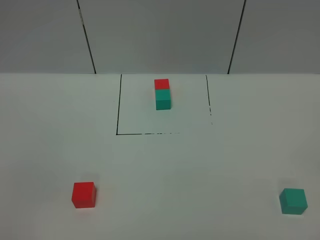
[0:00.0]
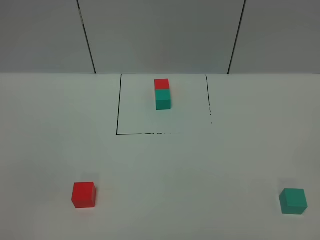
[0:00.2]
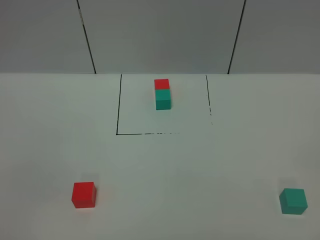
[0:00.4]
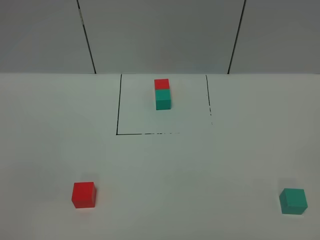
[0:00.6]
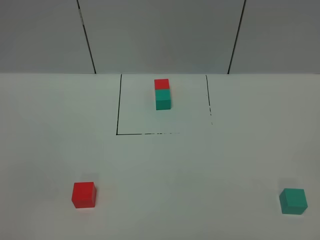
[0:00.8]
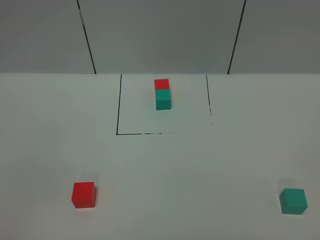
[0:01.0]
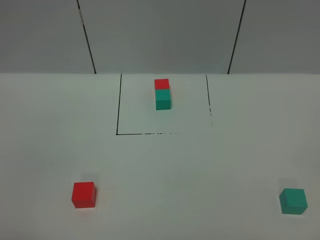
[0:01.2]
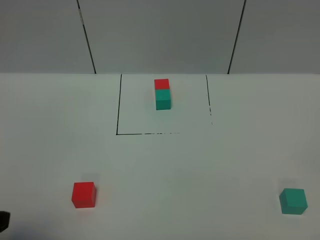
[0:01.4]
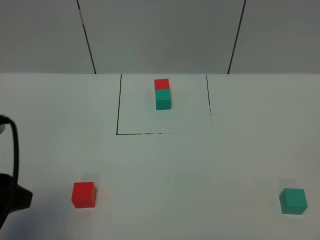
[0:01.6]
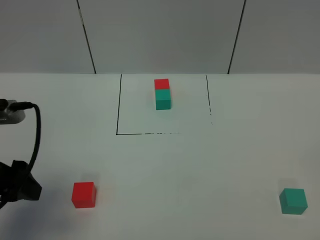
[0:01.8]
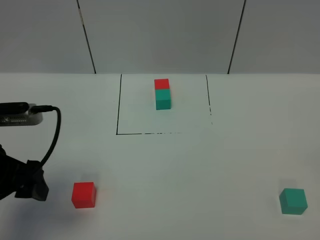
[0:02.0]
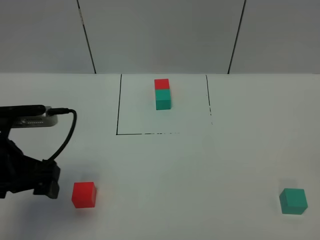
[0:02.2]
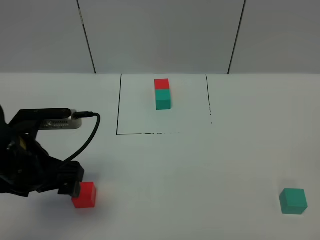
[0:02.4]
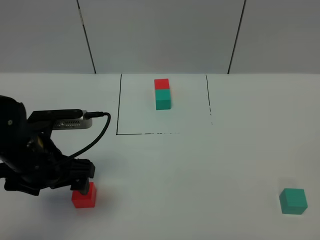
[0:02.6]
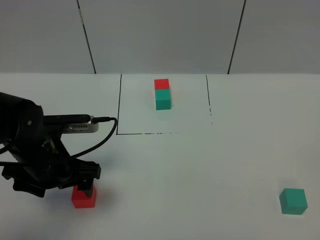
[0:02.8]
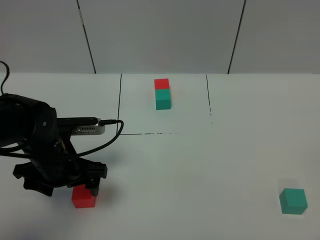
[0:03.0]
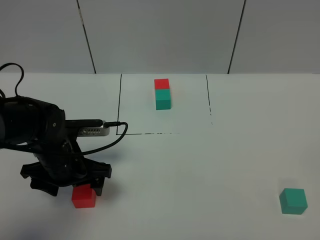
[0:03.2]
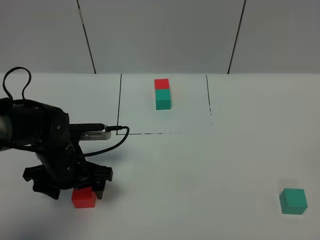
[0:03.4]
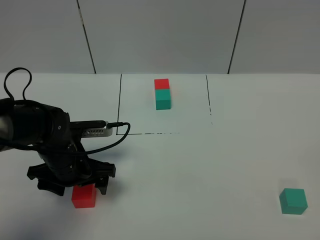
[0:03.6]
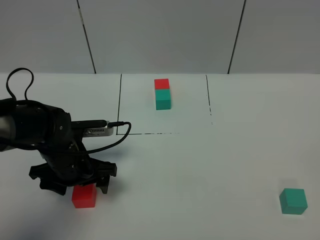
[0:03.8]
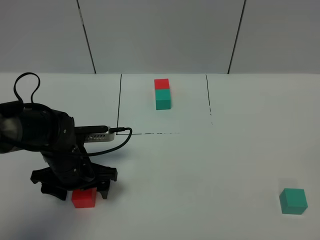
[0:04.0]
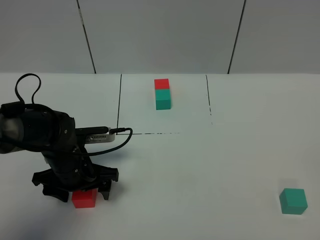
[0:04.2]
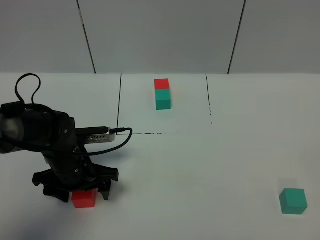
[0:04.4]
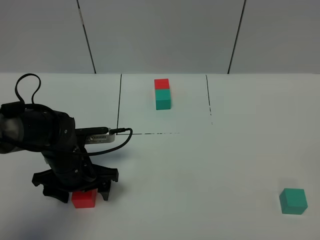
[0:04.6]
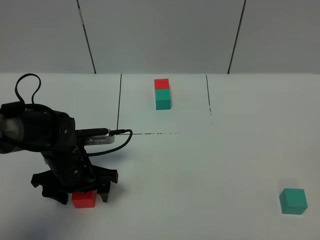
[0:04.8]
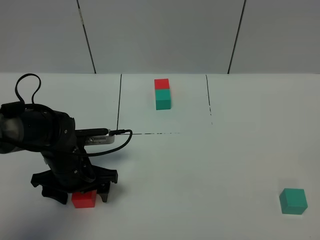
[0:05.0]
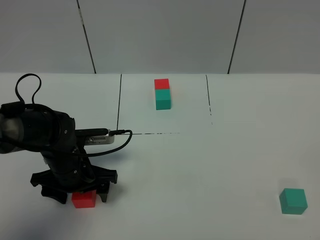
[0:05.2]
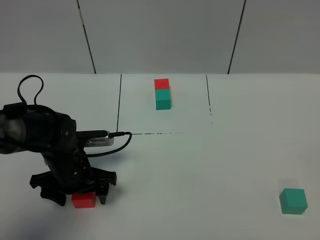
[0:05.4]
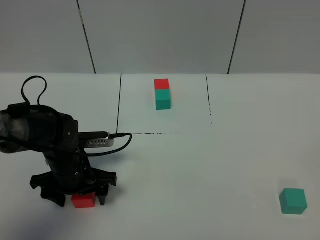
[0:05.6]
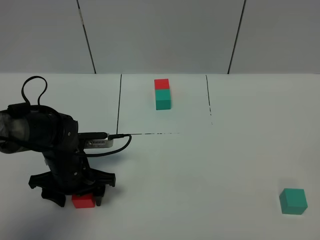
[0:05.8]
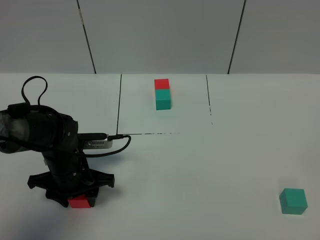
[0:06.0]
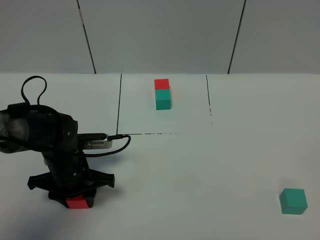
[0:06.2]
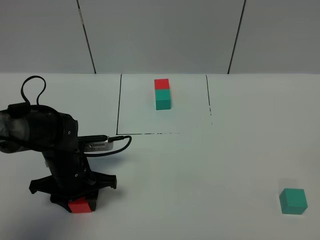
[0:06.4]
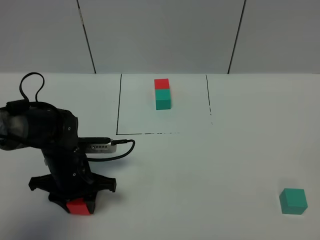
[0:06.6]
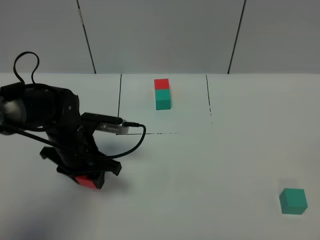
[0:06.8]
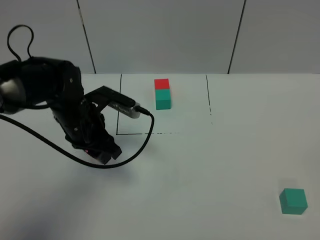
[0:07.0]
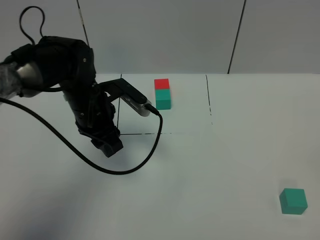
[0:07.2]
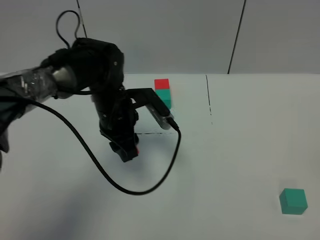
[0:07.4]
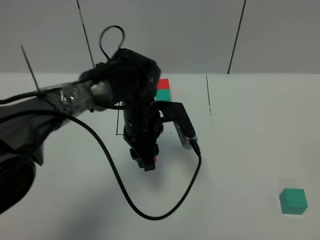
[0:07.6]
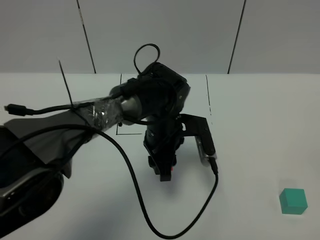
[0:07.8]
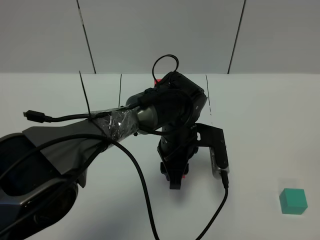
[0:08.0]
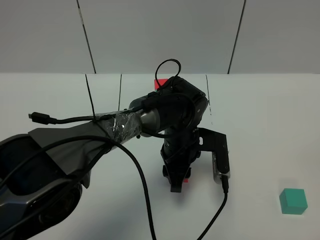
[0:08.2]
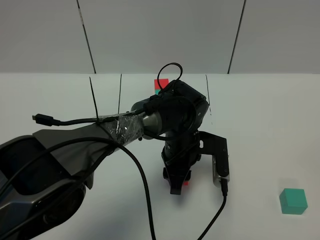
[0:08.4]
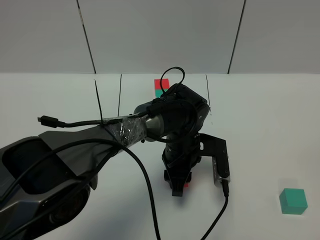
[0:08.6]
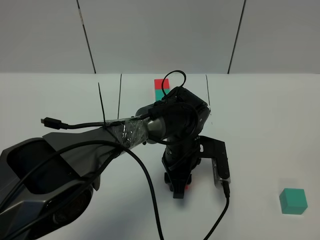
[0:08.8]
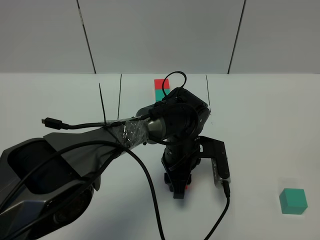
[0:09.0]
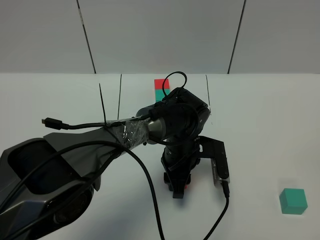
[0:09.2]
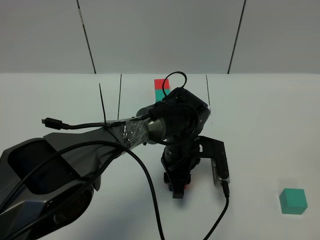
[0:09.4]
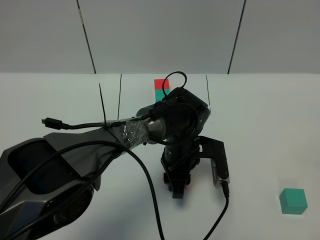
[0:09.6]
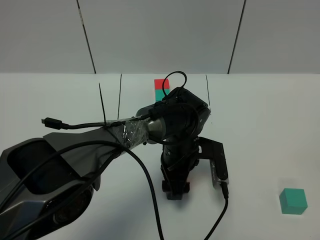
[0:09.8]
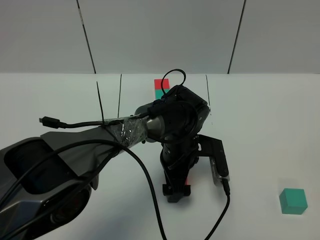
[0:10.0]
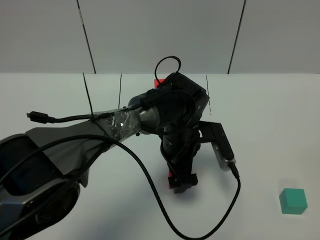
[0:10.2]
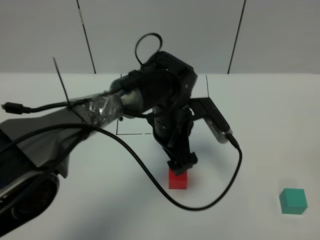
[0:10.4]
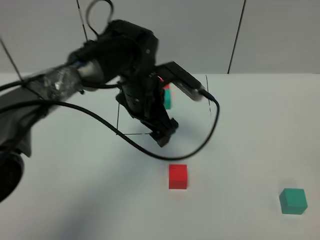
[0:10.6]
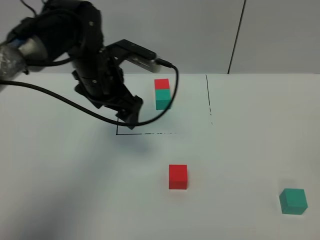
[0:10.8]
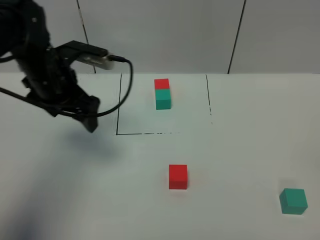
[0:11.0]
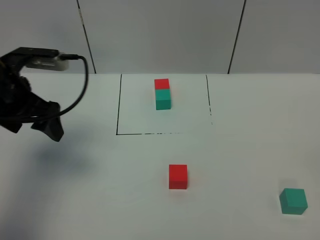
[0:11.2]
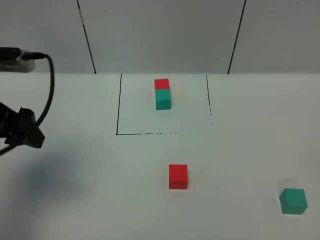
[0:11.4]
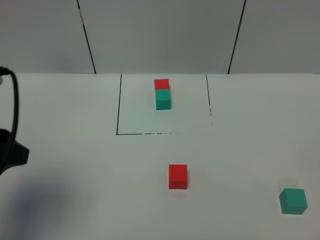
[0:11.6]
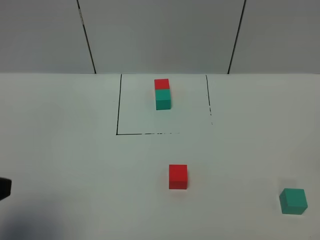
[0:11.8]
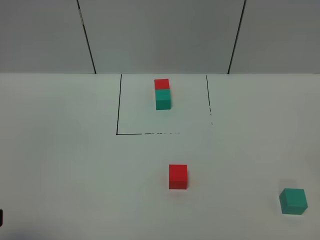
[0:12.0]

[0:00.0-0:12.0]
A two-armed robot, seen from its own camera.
Task of the whole recording: According to the building block template in front, assemble the scattered blocks together.
Step, 0:01.4 to 0:10.8: Put the red cube in the center of the table.
0:00.0 to 0:01.6: The left gripper goes about 15 cm forward.
0:01.6 to 0:03.0: The left gripper goes some 20 cm downward, forward and to the right.
0:03.0 to 0:04.4: The left gripper shifts by roughly 5 cm.
0:04.4 to 0:06.0: The left gripper closes up.
0:06.0 to 0:07.6: The left gripper heads to the right, forward and upward, covering some 15 cm.
0:07.6 to 0:09.0: The left gripper goes approximately 10 cm to the right and downward.
0:09.0 to 0:10.4: The left gripper shifts about 10 cm upward, and opens up.
0:10.4 to 0:12.0: The left gripper moves to the left, backward and upward, about 40 cm.

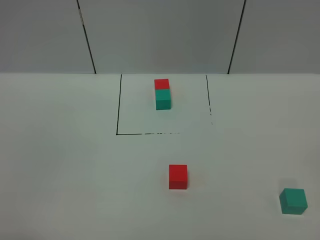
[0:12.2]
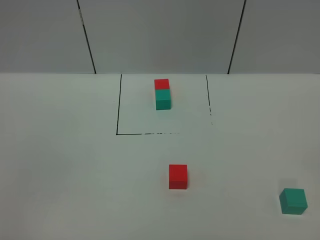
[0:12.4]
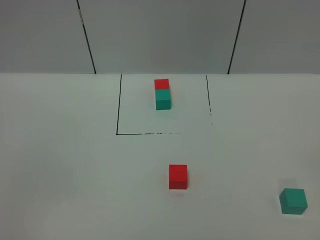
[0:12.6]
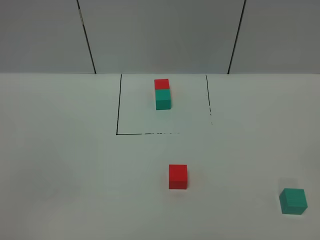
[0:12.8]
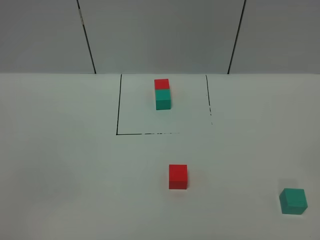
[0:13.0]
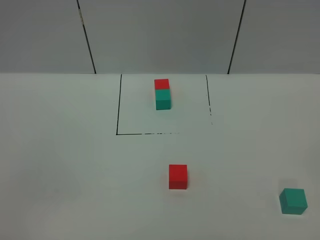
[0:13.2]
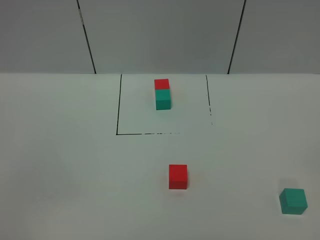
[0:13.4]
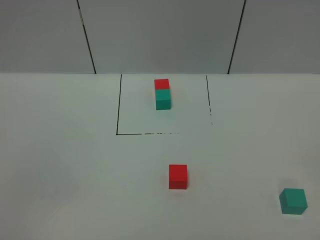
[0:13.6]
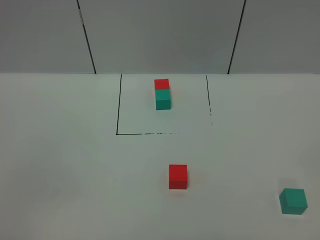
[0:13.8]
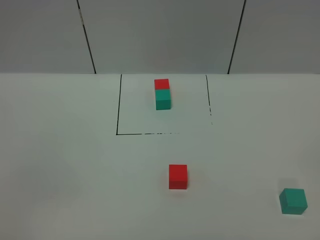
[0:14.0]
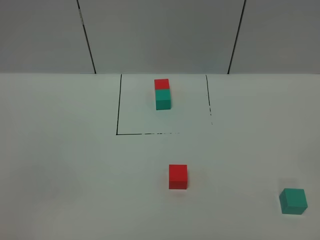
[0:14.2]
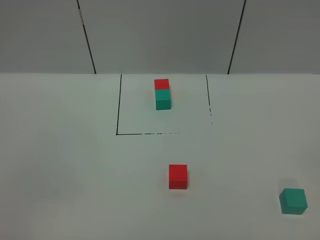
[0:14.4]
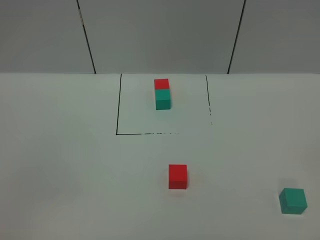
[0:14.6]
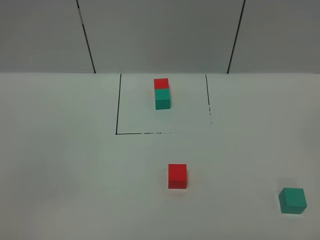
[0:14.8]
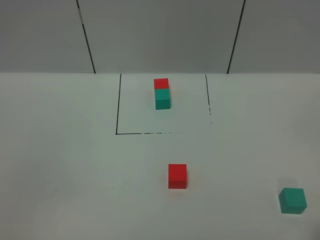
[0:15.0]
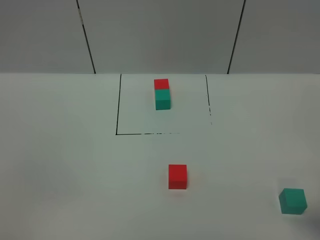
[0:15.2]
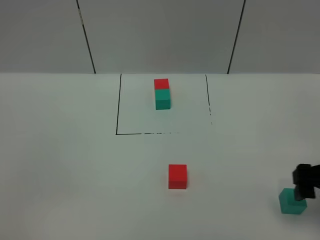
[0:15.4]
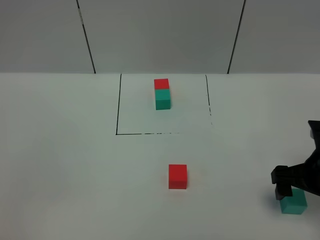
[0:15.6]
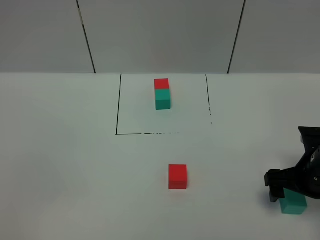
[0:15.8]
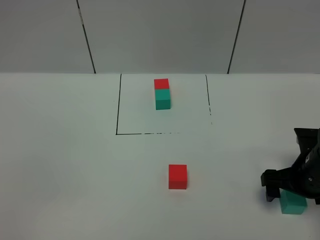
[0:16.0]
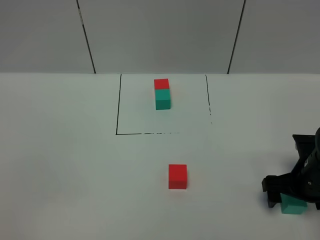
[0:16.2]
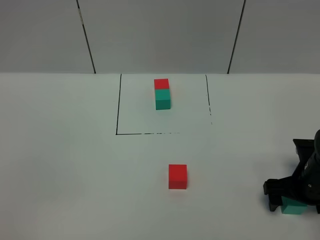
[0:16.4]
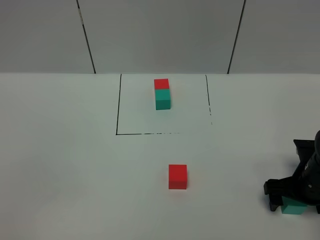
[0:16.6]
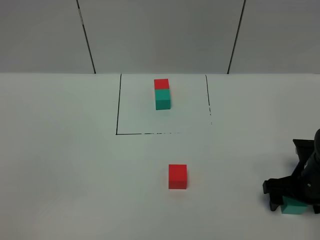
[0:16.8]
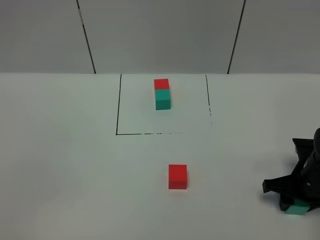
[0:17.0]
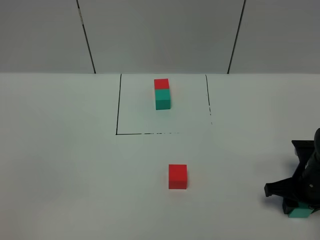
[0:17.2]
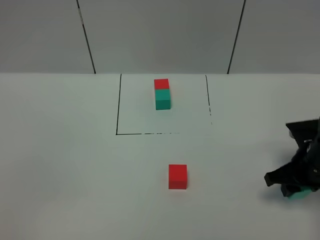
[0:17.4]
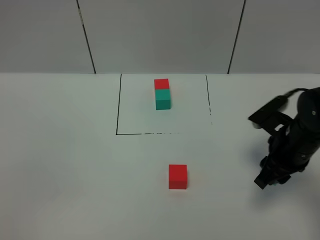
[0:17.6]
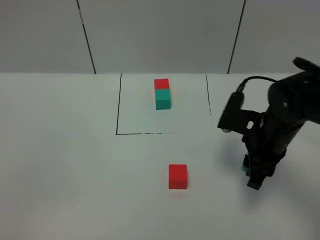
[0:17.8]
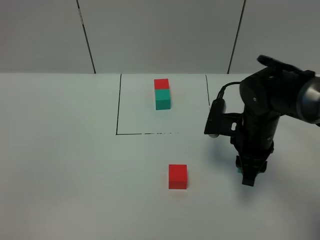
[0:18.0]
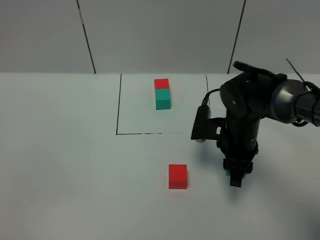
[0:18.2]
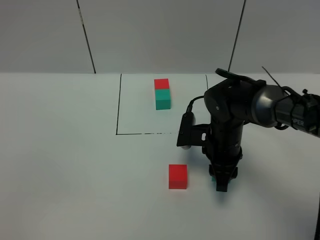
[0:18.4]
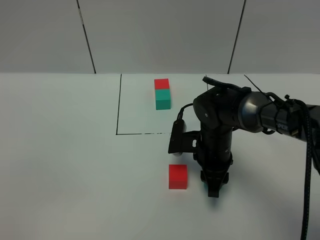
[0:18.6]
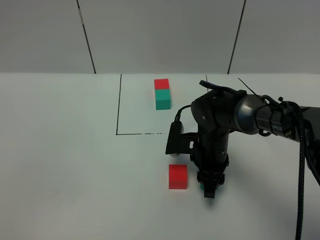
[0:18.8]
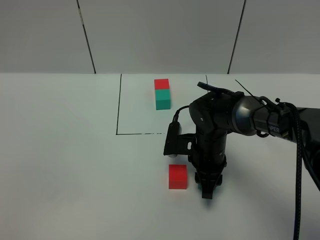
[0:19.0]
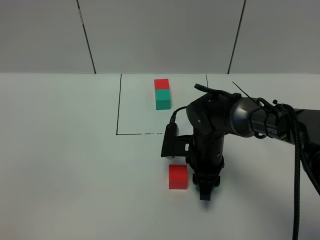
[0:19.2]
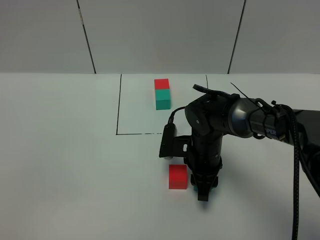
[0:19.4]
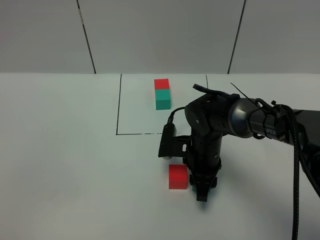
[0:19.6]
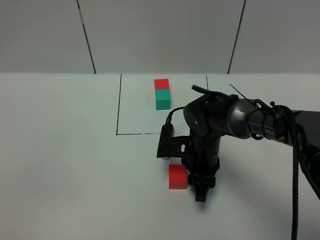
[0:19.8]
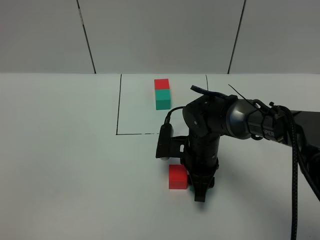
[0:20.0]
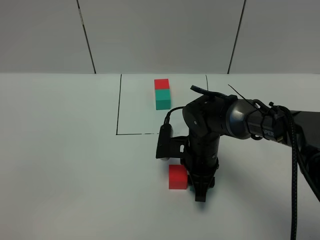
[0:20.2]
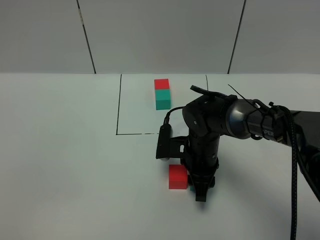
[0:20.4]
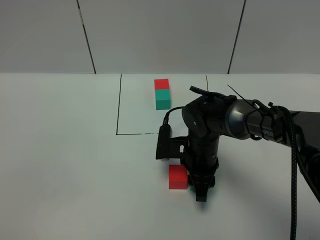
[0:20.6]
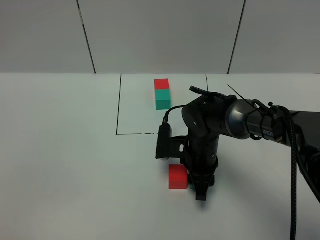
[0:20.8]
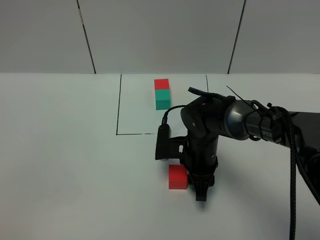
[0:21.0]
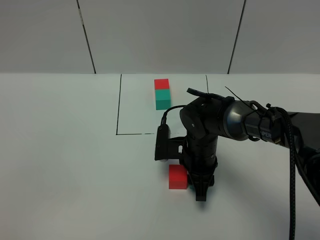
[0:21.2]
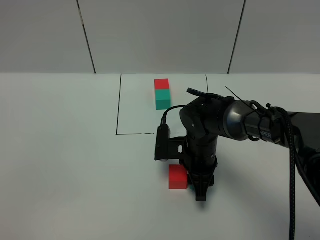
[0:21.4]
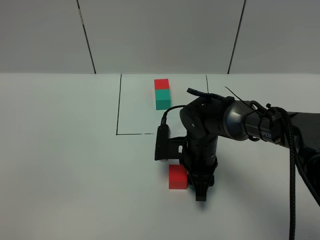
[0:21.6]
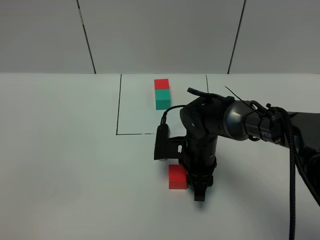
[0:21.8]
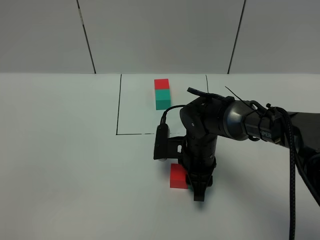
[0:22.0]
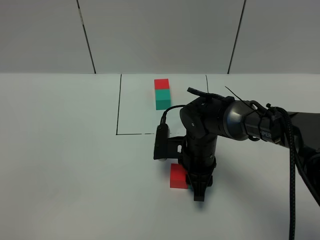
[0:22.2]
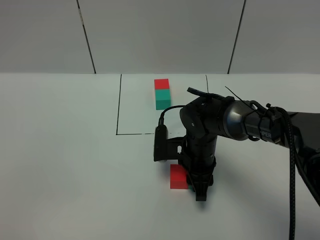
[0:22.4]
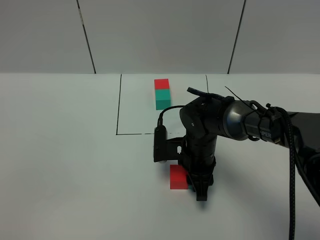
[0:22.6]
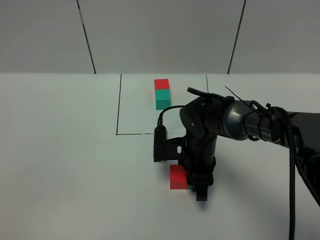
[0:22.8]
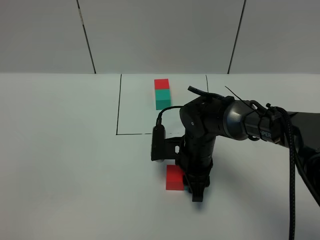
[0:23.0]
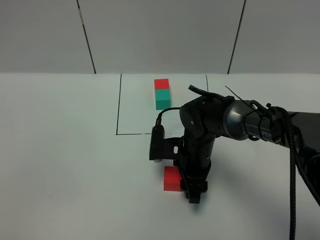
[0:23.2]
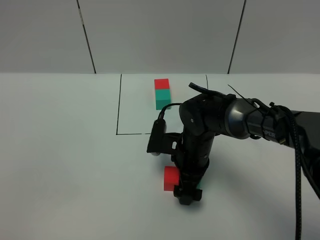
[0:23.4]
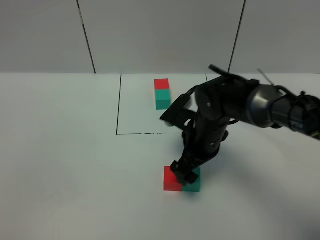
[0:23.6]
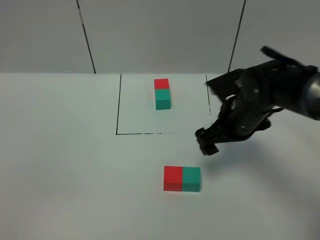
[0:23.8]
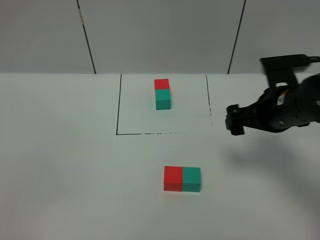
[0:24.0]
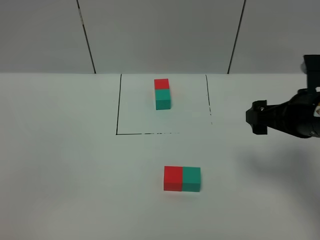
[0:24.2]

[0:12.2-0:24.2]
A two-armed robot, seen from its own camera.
Task of the whole recording: According to the building block template in front, assemble the scattered blocks together.
0:15.2 to 0:16.6: The right gripper shifts about 20 cm downward and forward.
0:16.6 to 0:18.2: The right gripper heads to the left and forward, covering roughly 15 cm, and closes up.
0:18.2 to 0:19.8: The right gripper heads to the left, covering some 5 cm.
0:19.8 to 0:21.2: Both grippers stay put.
0:21.2 to 0:22.6: The two grippers keep their place.
0:22.6 to 0:24.2: The right gripper is displaced to the right, upward and backward by approximately 25 cm, and opens up.
